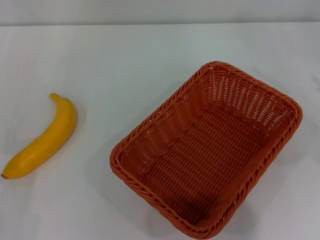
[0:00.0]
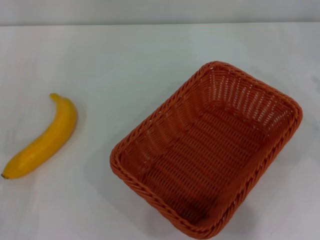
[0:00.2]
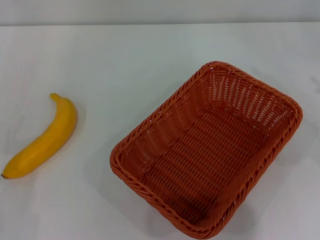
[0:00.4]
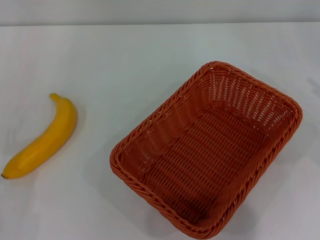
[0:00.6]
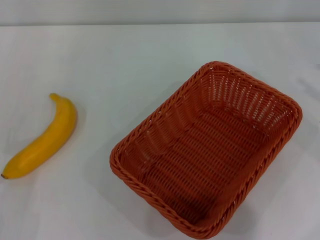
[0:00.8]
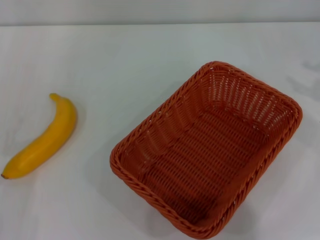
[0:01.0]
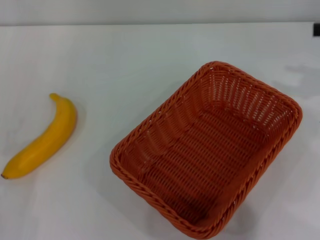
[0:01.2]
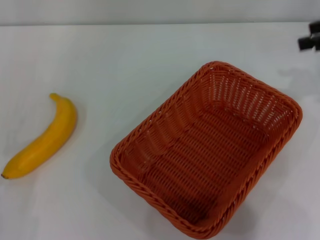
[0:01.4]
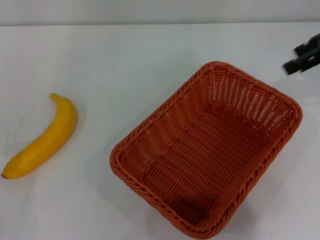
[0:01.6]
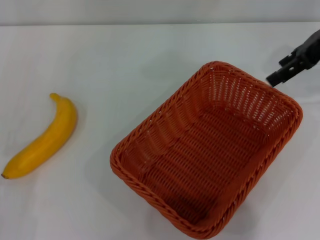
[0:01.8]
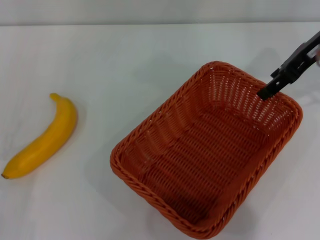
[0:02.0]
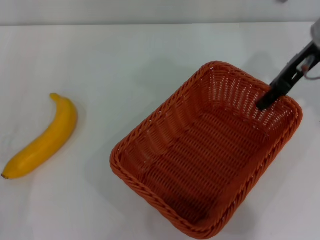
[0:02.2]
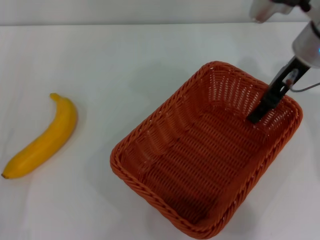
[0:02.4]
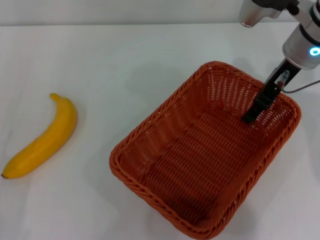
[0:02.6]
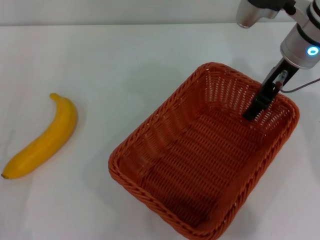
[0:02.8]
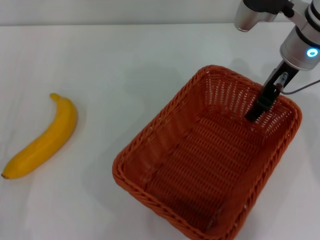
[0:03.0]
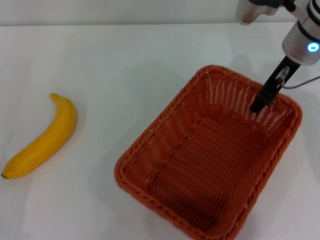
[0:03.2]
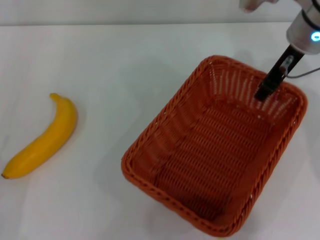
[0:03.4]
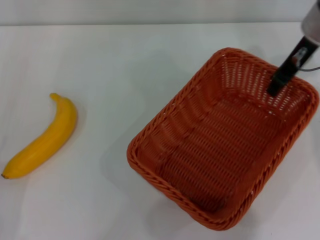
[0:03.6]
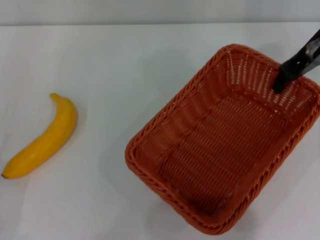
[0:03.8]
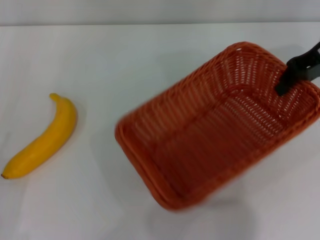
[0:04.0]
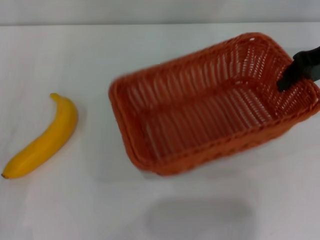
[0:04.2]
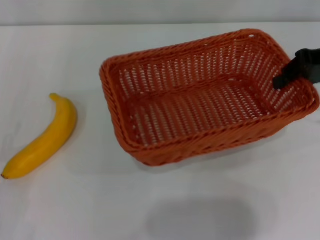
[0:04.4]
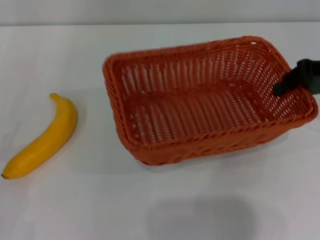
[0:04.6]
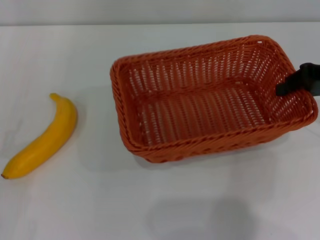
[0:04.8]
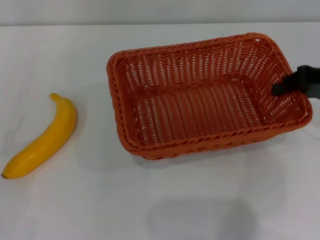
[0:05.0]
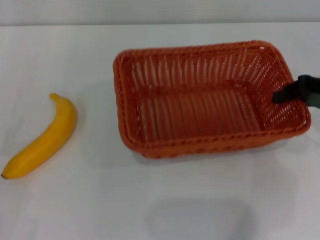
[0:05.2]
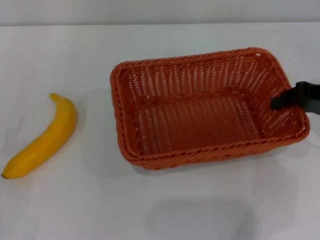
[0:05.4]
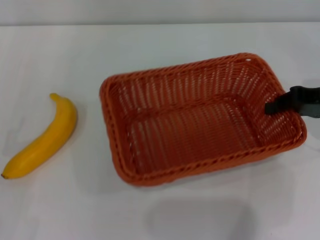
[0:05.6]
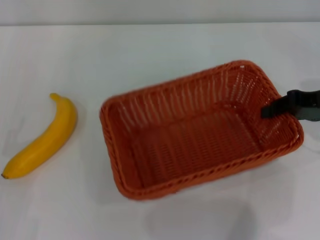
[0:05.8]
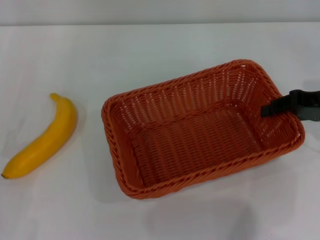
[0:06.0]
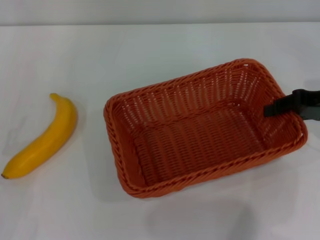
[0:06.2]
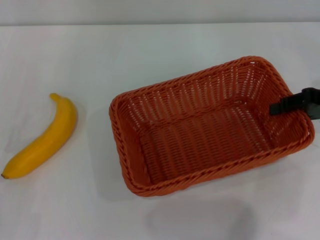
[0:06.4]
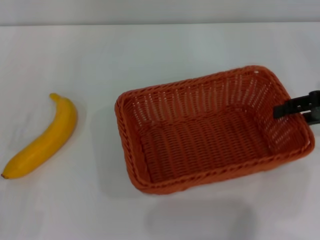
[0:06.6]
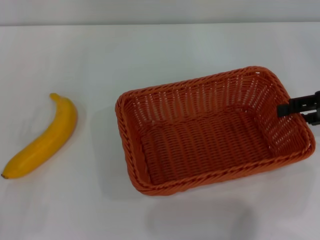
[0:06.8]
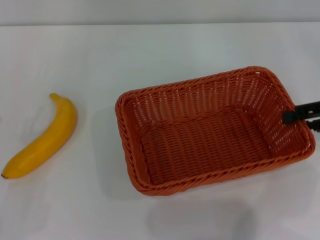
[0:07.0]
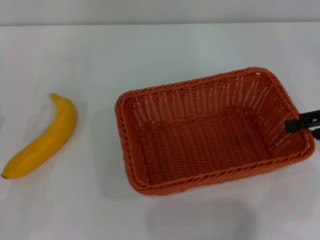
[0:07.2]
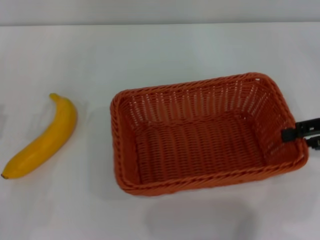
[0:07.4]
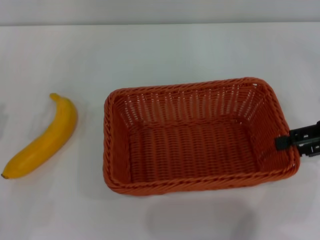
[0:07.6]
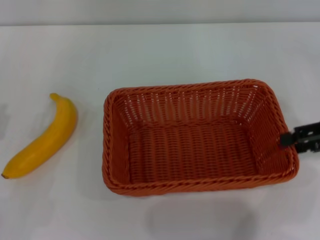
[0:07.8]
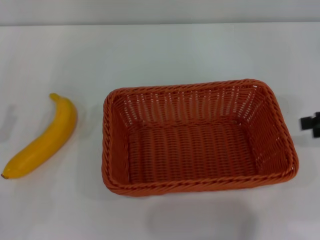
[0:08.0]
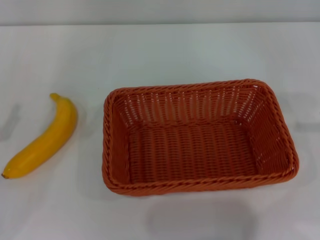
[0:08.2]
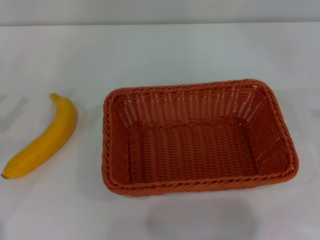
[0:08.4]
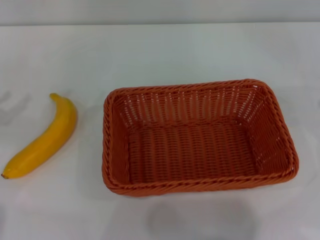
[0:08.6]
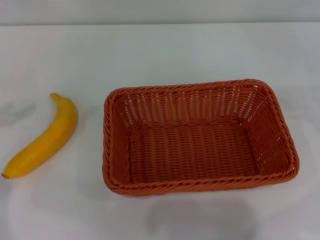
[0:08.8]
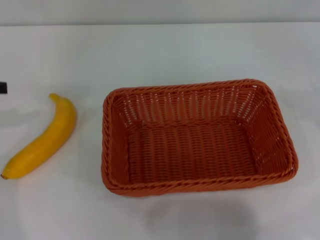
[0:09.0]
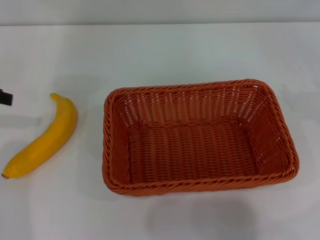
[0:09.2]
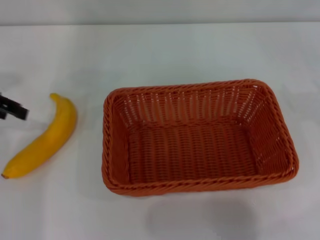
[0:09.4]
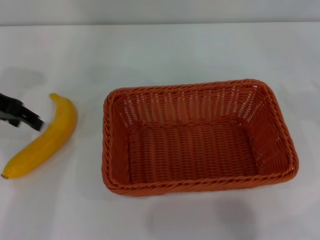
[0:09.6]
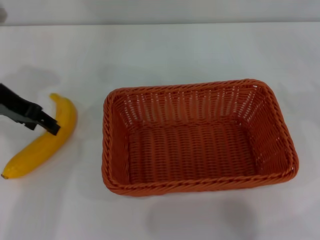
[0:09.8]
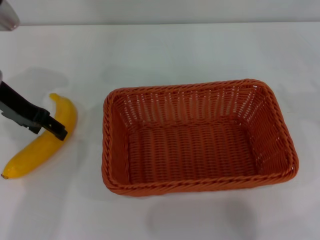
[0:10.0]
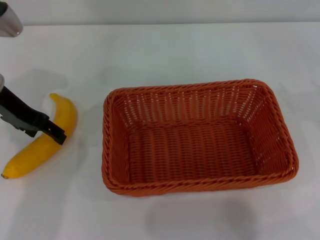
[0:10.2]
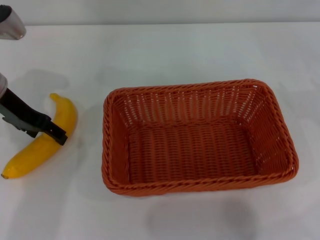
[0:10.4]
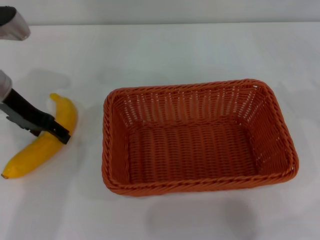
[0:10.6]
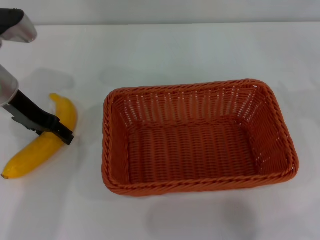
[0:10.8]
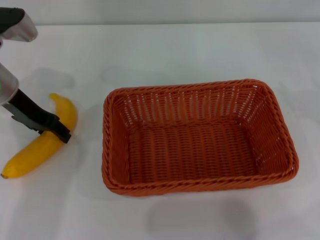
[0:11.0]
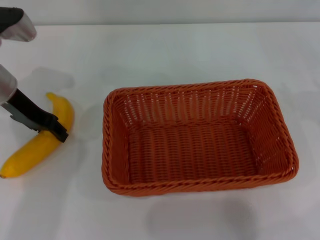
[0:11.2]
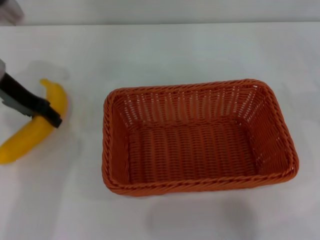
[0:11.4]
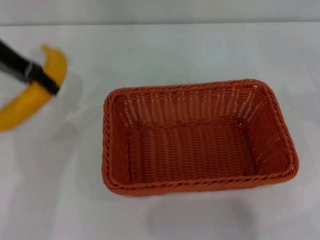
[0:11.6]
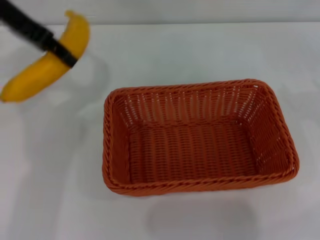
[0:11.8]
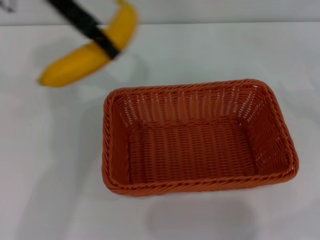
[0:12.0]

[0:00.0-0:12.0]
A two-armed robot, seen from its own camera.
Step, 0:00.0 to 0:04.0: Pick up the light basket with the right gripper.
Step, 0:04.2 to 0:08.0: Place the light basket in the center of view with the right gripper.
Step, 0:08.2 to 0:11.6: Pick up the banana with the left gripper.
0:00.0 to 0:01.6: The right gripper moves forward, upward and to the left, approximately 20 cm.
0:01.6 to 0:03.0: The right gripper shifts about 15 cm to the left and downward, and closes.
0:03.0 to 0:04.4: The right gripper heads to the right, covering some 10 cm, and closes its fingers.
0:04.4 to 0:06.0: The right gripper goes about 5 cm downward.
0:06.0 to 0:07.6: The right gripper opens up.
0:07.6 to 0:09.0: The left gripper is displaced upward, forward and to the left by approximately 20 cm, while the right gripper moves to the right, approximately 10 cm.
0:09.0 to 0:10.4: The left gripper travels to the right and forward by approximately 15 cm, and opens up.
0:10.4 to 0:12.0: The left gripper shifts roughly 15 cm upward and to the right, and closes up.

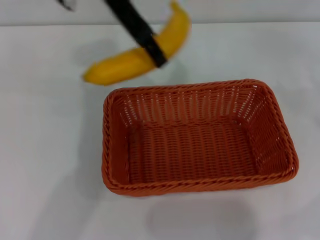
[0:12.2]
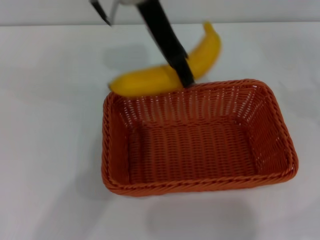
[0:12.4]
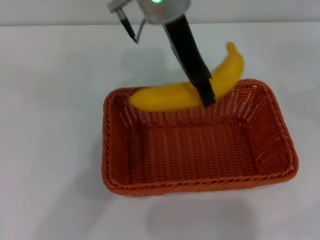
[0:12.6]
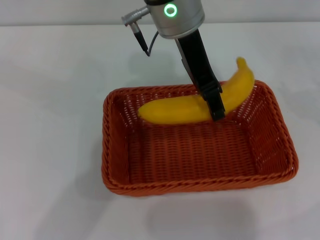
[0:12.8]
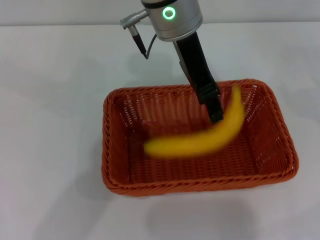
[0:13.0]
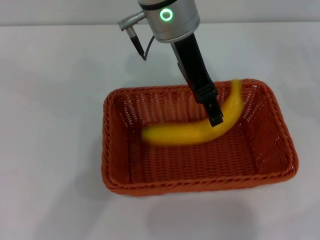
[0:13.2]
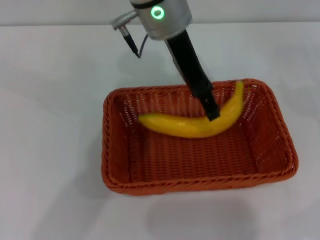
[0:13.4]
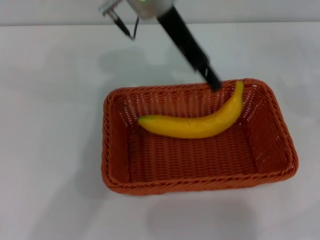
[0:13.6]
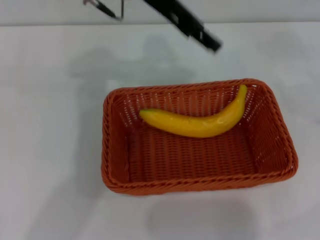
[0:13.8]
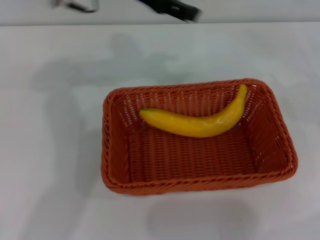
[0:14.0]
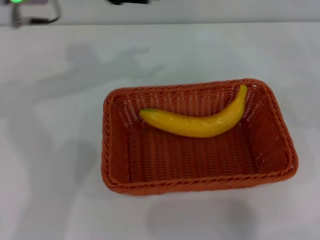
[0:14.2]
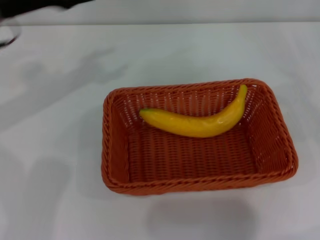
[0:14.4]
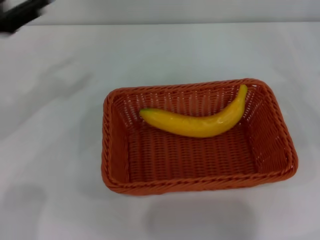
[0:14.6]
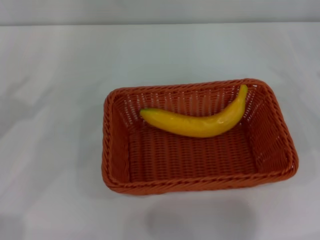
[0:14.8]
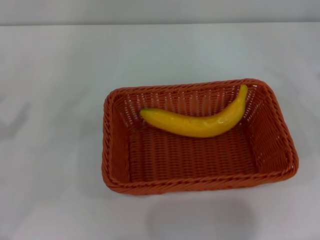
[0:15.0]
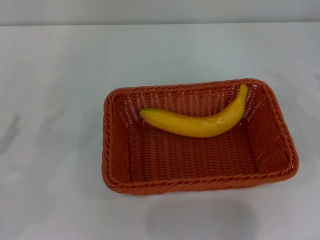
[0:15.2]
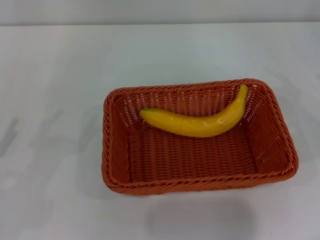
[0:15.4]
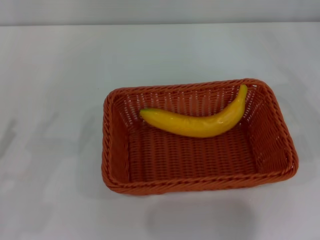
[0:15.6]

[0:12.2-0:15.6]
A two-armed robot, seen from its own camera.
Step, 0:12.2 to 0:13.6: Place the banana into the light basket with the left gripper.
0:12.2 to 0:13.8: The left gripper goes to the right and returns, approximately 10 cm each way, and opens.
0:13.8 to 0:15.6: The right gripper is displaced downward by some 5 cm; the left gripper shifts some 40 cm to the left, backward and downward.
